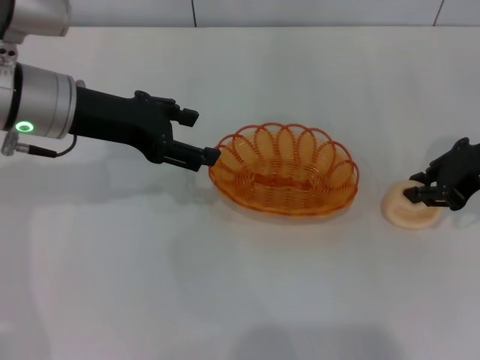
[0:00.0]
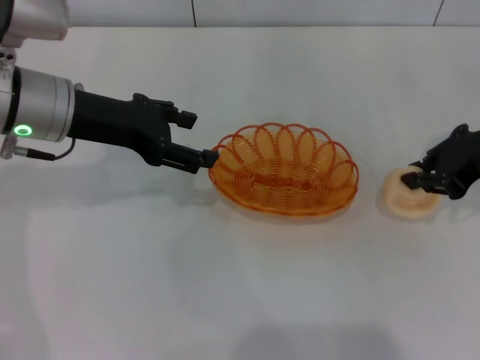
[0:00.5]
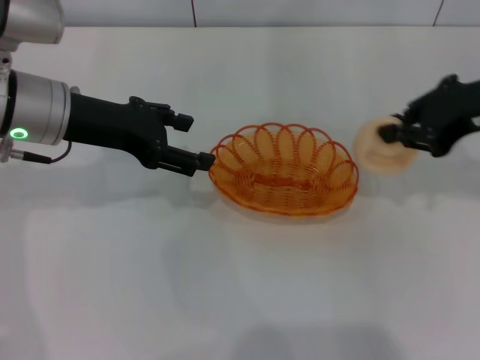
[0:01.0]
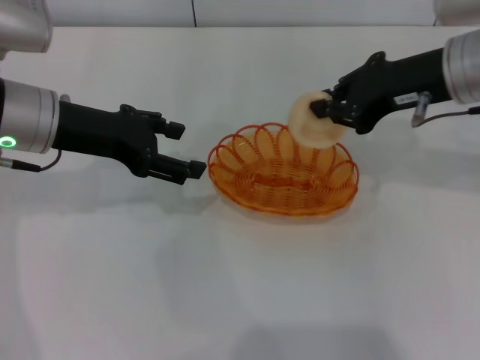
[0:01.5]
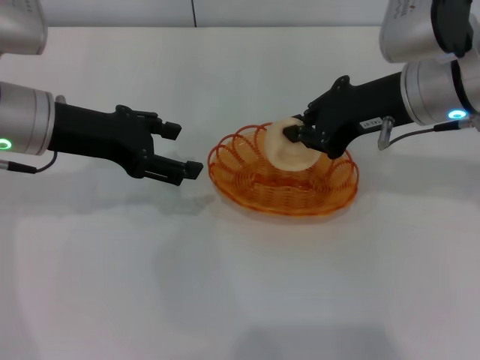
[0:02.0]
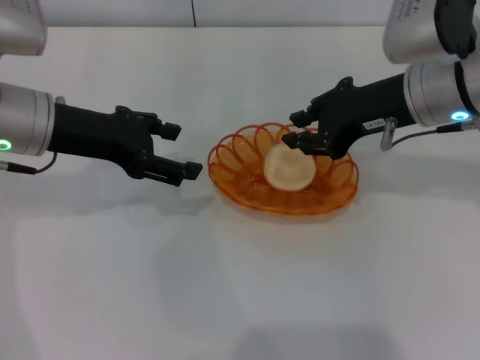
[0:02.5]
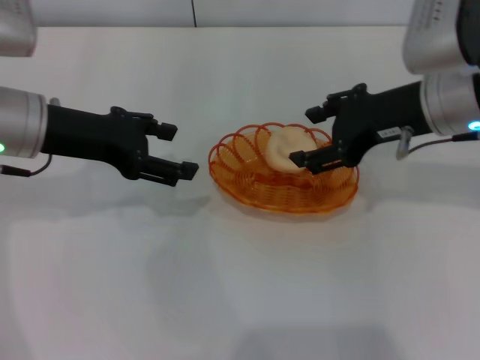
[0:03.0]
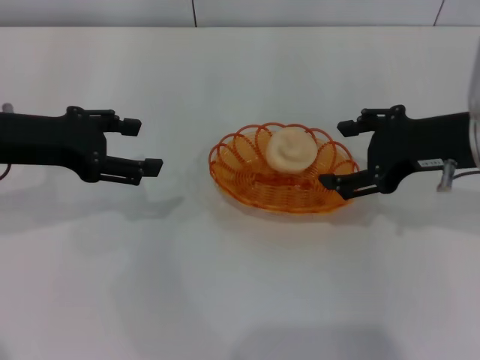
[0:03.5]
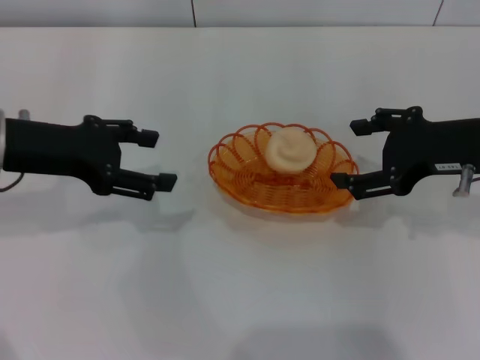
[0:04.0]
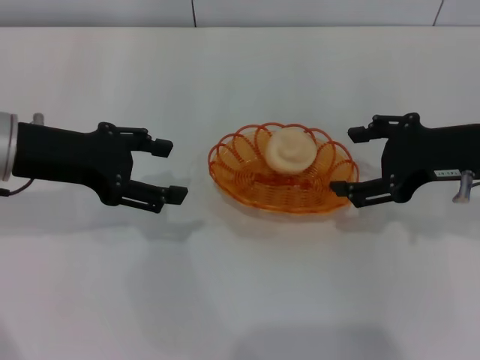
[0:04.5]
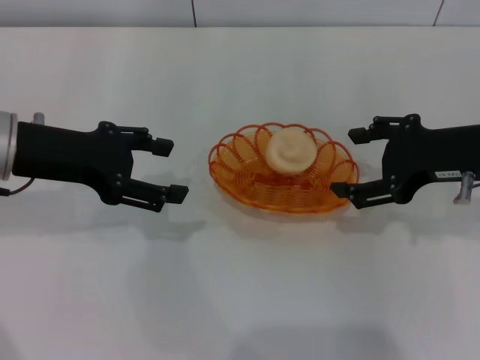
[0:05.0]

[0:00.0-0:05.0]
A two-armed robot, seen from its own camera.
Step, 0:01.0 to 0:03.0: Place the egg yolk pastry into the basket with the right gripper.
0:00.0 to 0:02.5: The right gripper travels to the left by roughly 10 cm.
0:02.5 to 0:05.0: The right gripper goes roughly 10 cm to the right and backward, and opens its fingers.

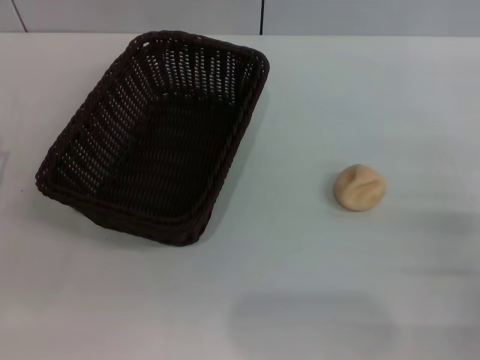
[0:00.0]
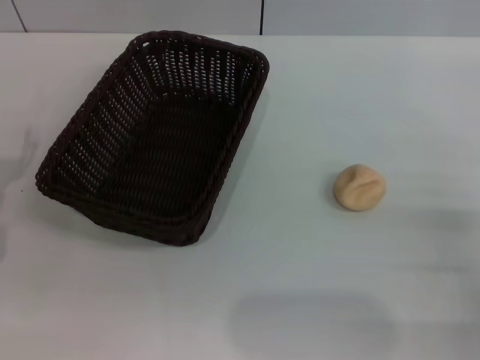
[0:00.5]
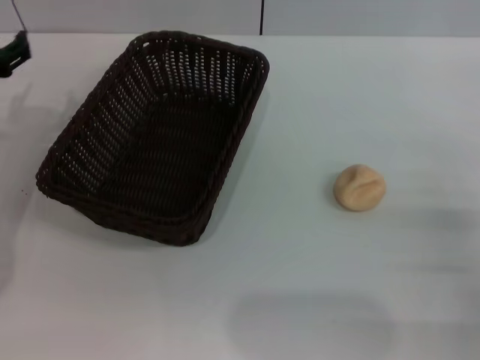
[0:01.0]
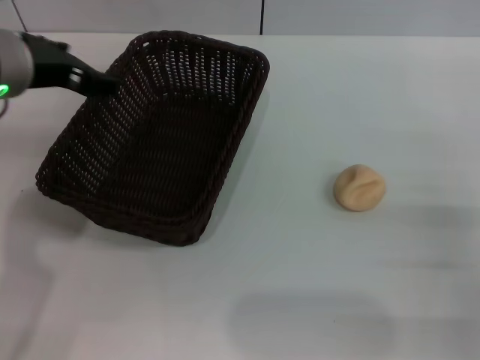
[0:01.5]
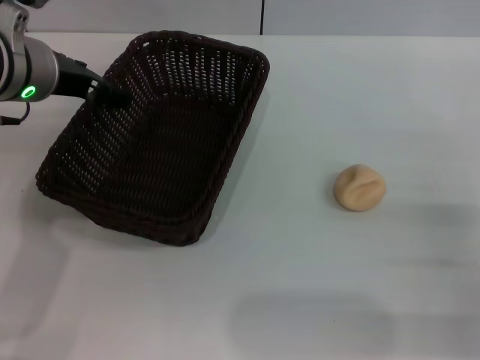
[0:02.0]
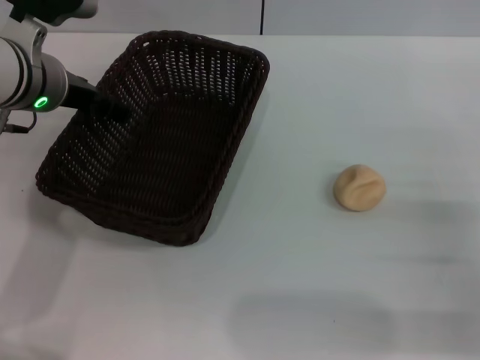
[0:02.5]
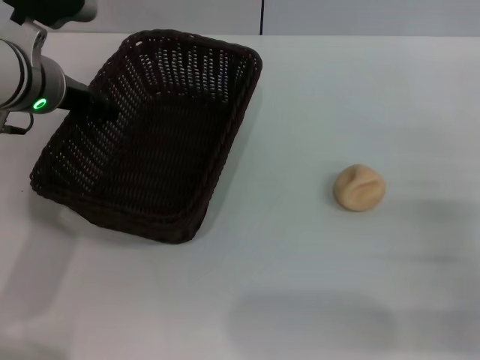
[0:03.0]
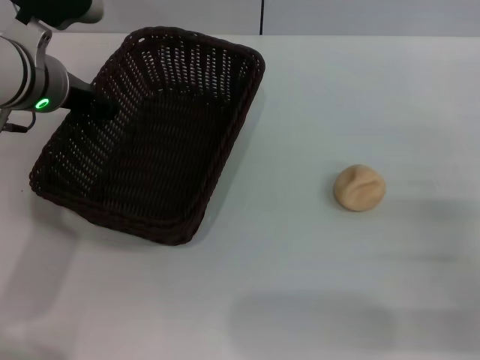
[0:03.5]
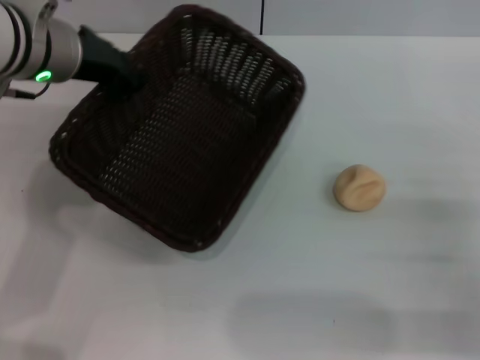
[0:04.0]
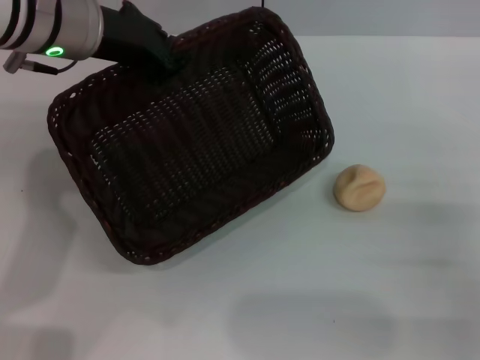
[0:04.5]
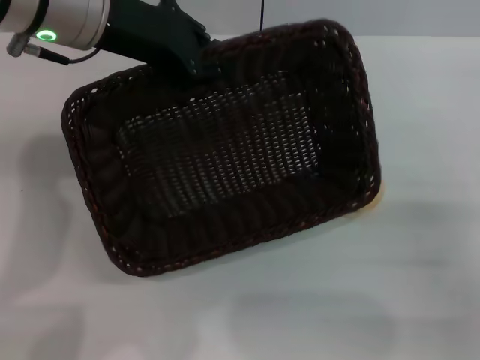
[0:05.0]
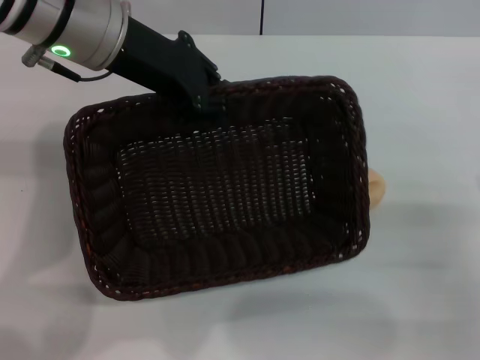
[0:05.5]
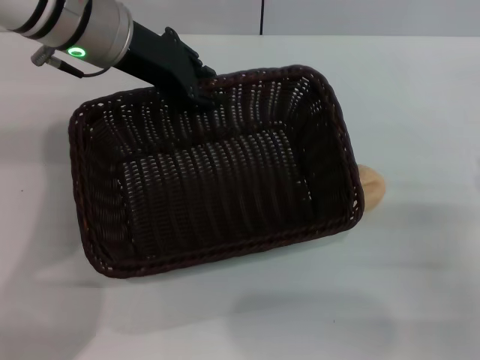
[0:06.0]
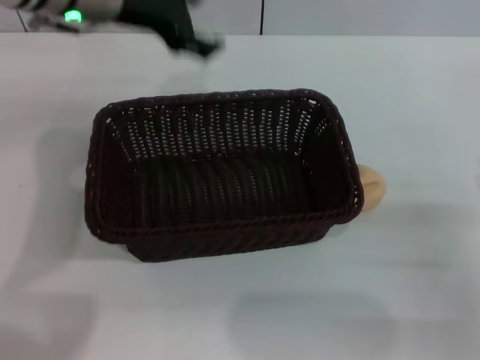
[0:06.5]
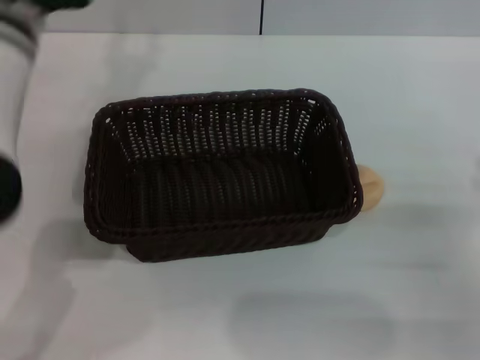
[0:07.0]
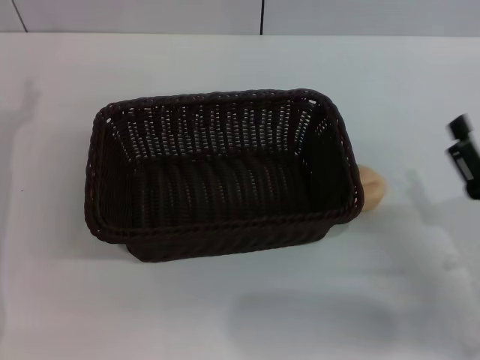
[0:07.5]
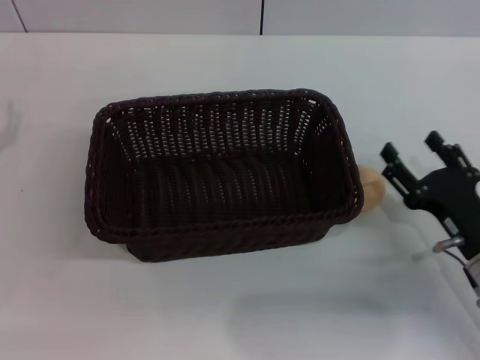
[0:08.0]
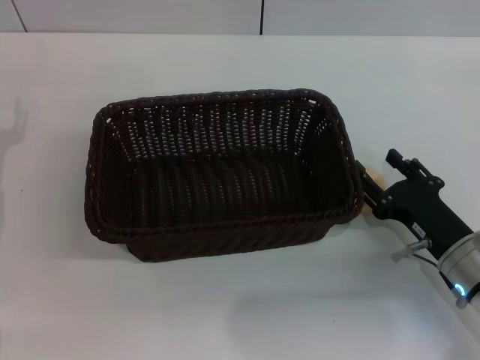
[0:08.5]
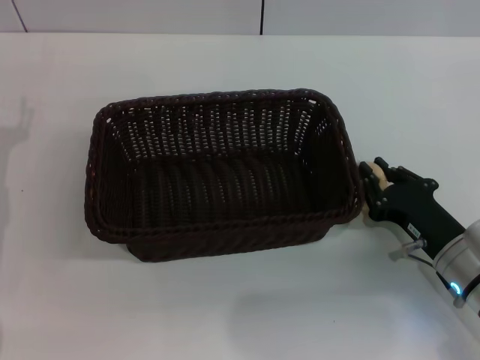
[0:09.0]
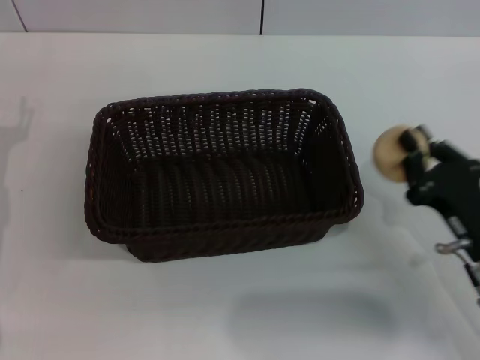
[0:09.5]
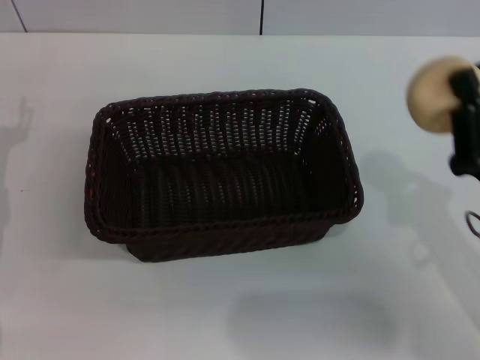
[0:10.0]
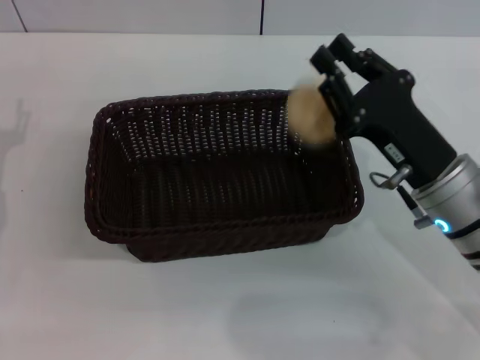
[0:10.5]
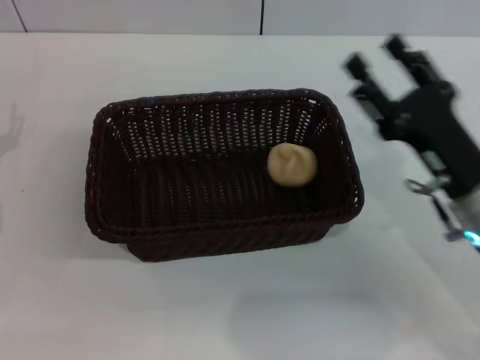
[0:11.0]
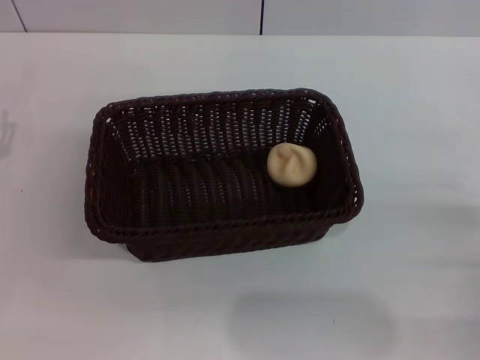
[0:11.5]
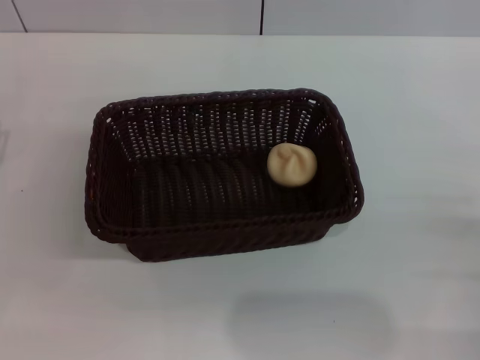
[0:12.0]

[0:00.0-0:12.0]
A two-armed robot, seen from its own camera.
Step, 0:00.0 to 0:06.0: Move the basket to the center of view with the left gripper.
Step, 0:07.0 to 0:09.5: Pick up the egg yolk pastry with the right gripper.
Step, 0:10.0 to 0:10.5: Place the egg yolk pastry into the basket with the right gripper.
0:00.0 to 0:02.0: The left gripper moves upward, to the right and forward, some 25 cm.
0:02.0 to 0:04.0: The left gripper closes up.
0:06.0 to 0:08.0: The left gripper shifts roughly 25 cm to the left, downward and backward, and opens its fingers. Meanwhile the right gripper ends up some 5 cm from where it was.
0:08.0 to 0:10.0: The right gripper is displaced upward by roughly 5 cm, and closes.
0:10.0 to 0:12.0: The right gripper is displaced to the right by approximately 10 cm, and opens its fingers.

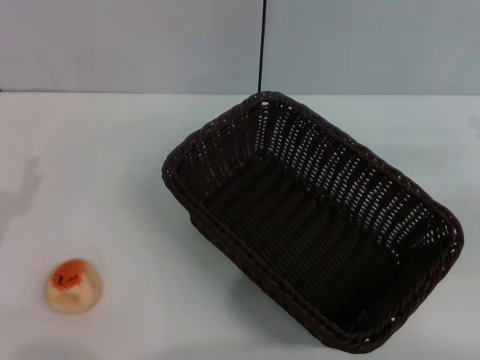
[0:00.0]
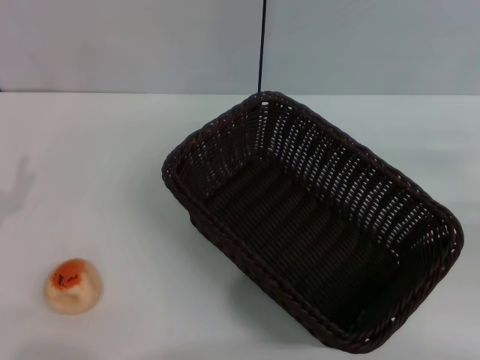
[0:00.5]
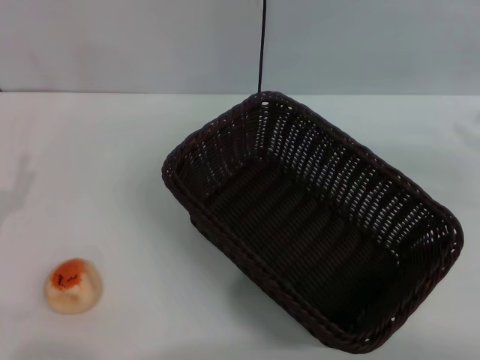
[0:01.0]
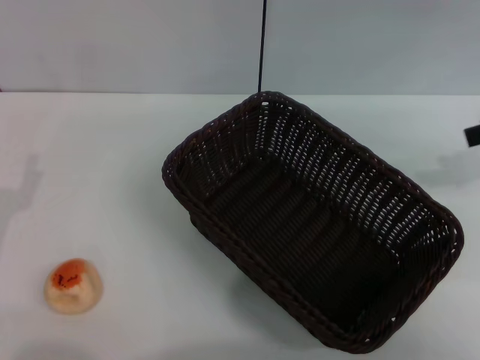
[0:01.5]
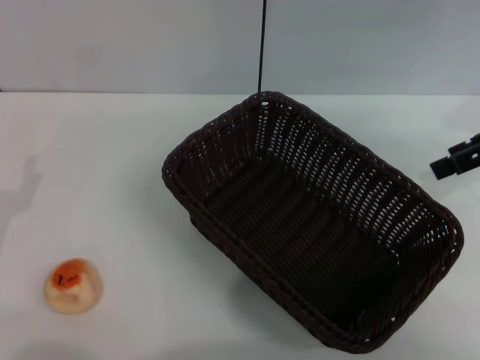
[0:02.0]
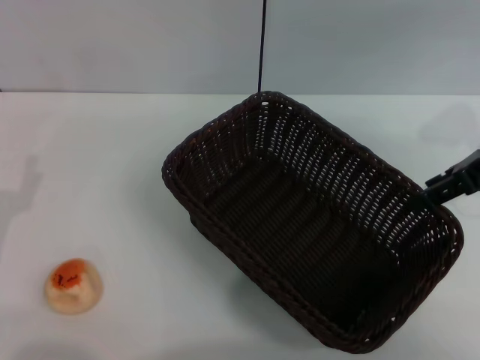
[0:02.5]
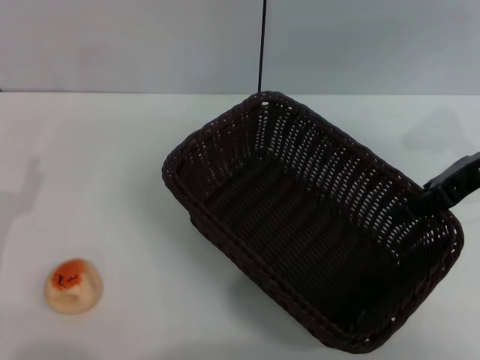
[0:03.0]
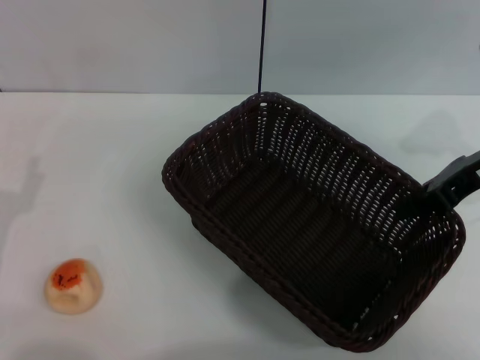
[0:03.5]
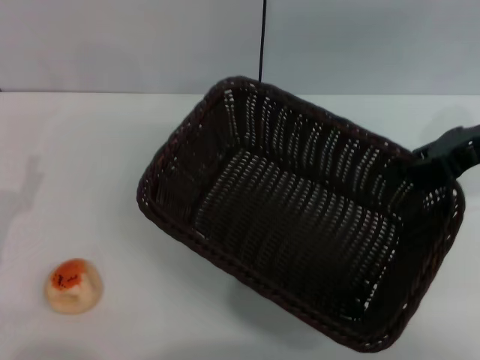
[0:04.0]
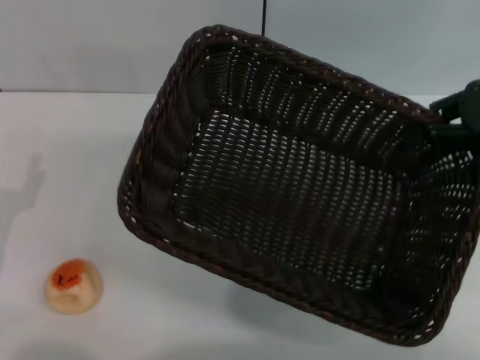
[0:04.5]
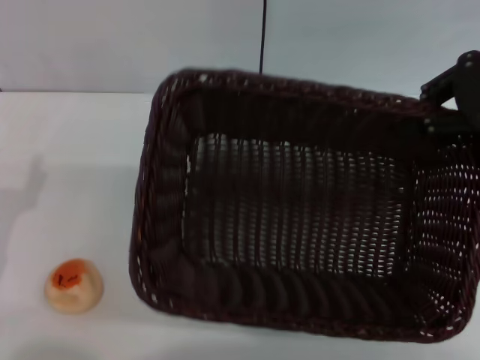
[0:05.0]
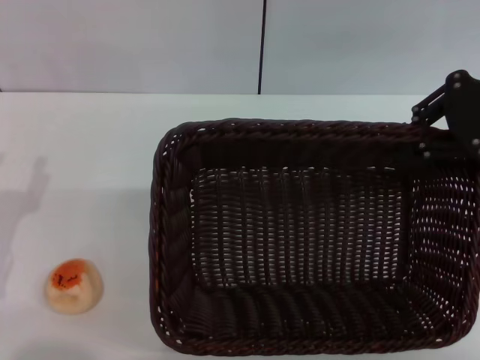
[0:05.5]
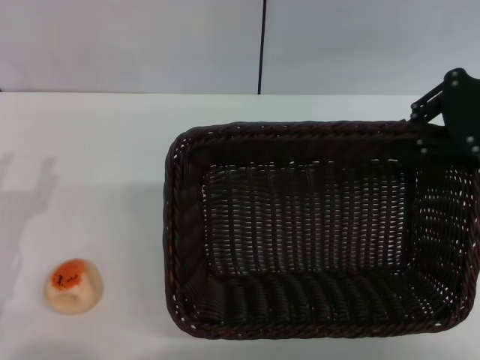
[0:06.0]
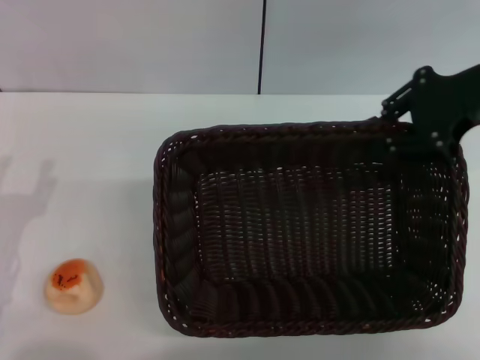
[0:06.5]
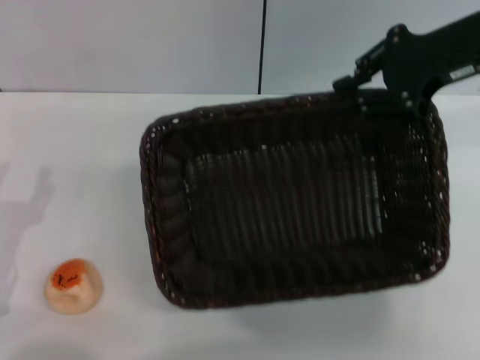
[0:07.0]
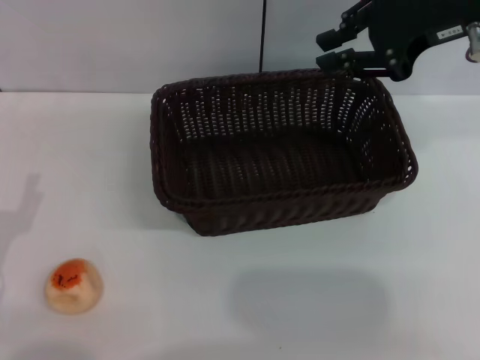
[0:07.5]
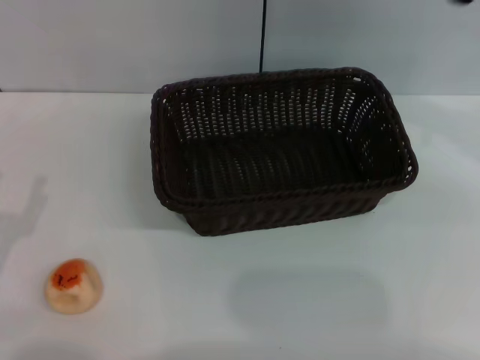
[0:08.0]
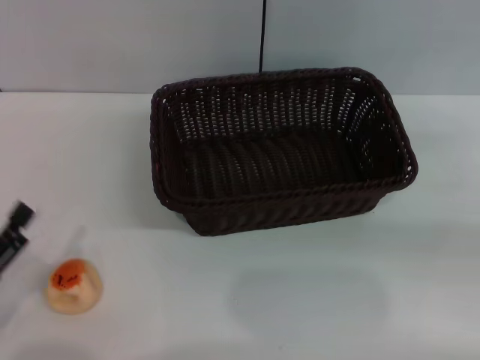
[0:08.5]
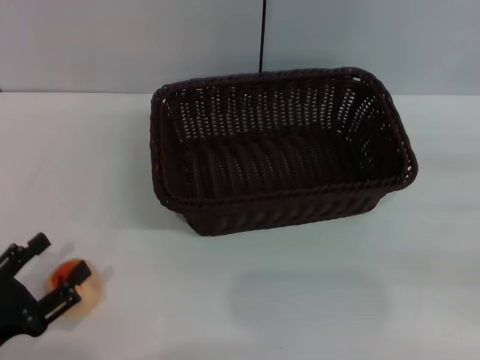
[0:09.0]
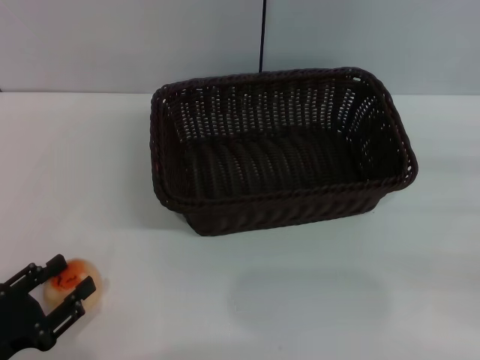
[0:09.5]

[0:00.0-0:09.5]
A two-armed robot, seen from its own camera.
Step, 0:00.0 to 0:07.0: Move the basket to the center of view with the right gripper.
0:00.0 to 0:02.0: The right gripper heads upward, to the left and forward, covering roughly 15 cm.
0:02.0 to 0:04.0: The right gripper closes up.
0:05.5 to 0:07.5: The right gripper travels to the left by approximately 5 cm.
0:07.5 to 0:09.5: The right gripper heads to the right, downward and backward, covering about 30 cm. Meanwhile the left gripper changes place by about 5 cm.
